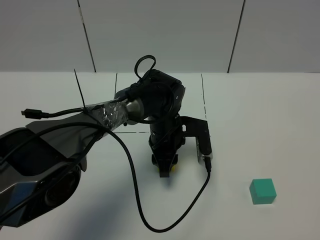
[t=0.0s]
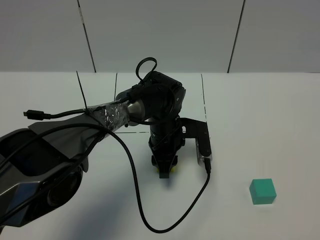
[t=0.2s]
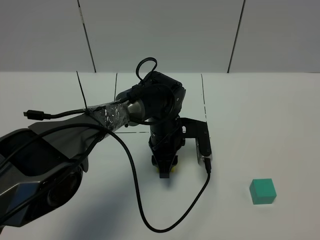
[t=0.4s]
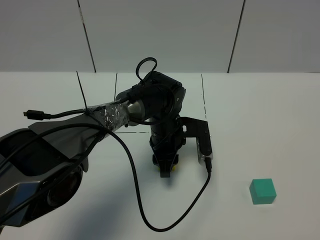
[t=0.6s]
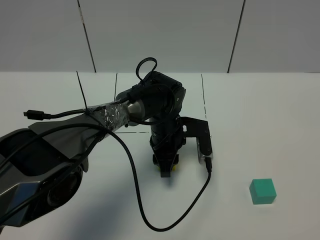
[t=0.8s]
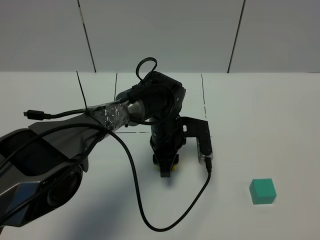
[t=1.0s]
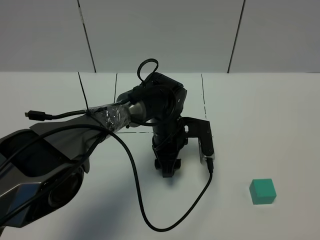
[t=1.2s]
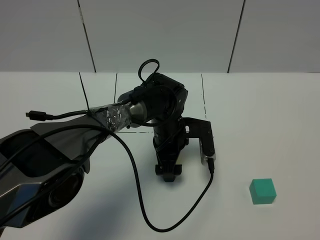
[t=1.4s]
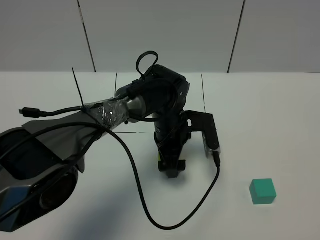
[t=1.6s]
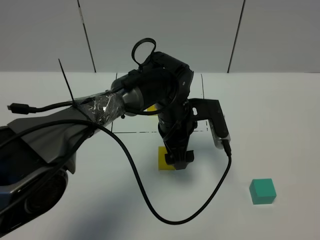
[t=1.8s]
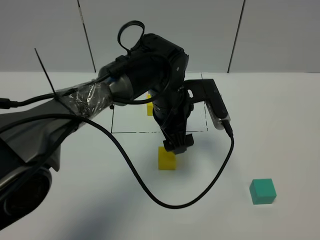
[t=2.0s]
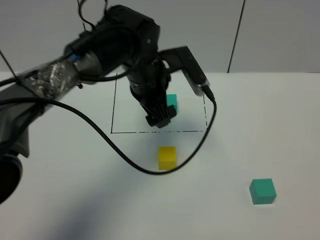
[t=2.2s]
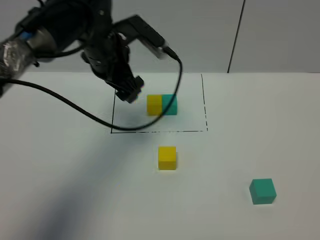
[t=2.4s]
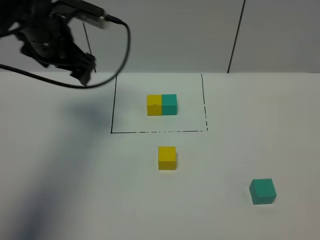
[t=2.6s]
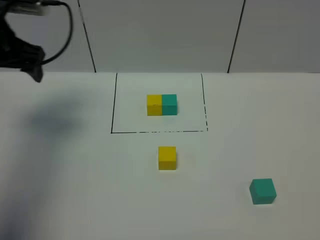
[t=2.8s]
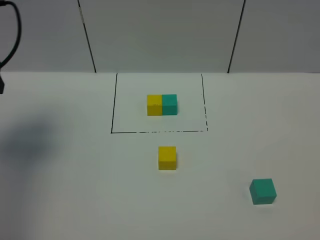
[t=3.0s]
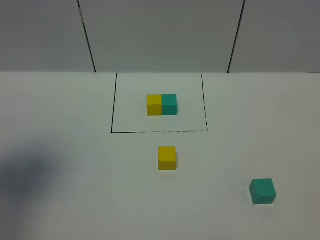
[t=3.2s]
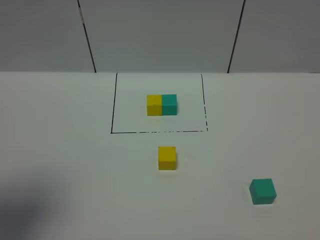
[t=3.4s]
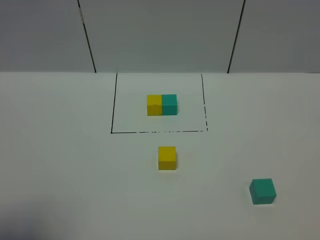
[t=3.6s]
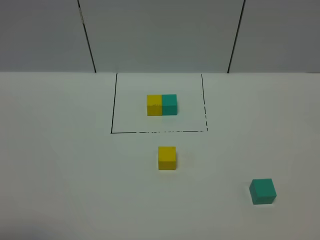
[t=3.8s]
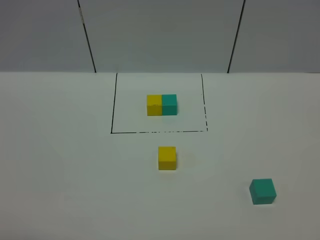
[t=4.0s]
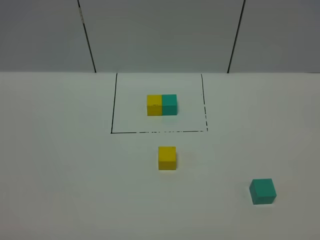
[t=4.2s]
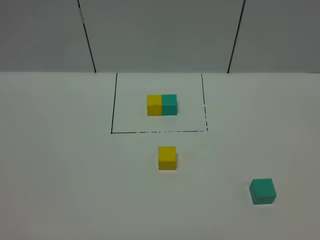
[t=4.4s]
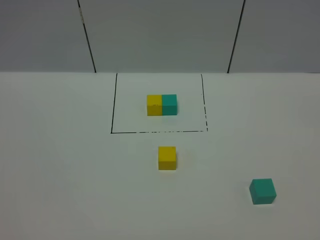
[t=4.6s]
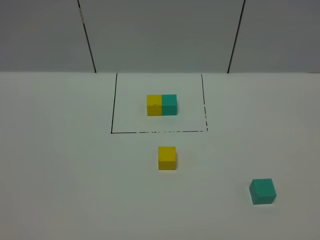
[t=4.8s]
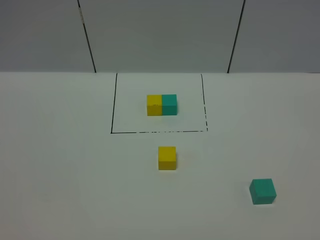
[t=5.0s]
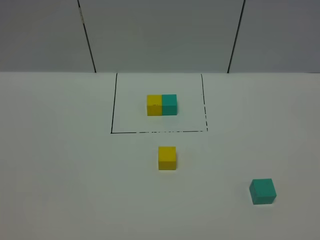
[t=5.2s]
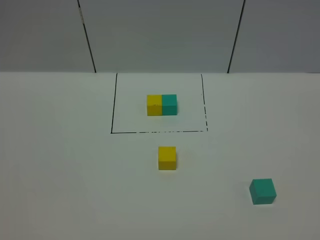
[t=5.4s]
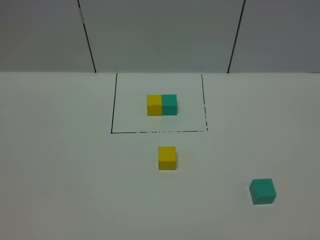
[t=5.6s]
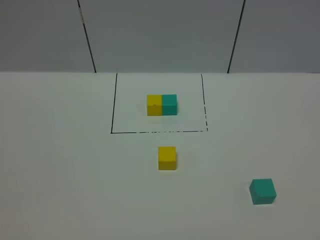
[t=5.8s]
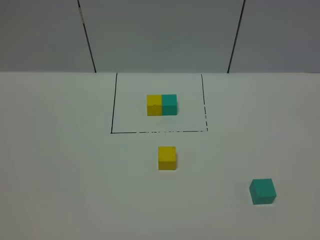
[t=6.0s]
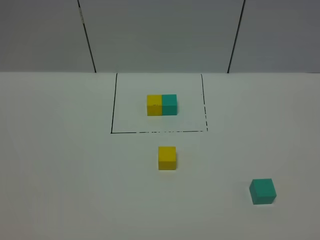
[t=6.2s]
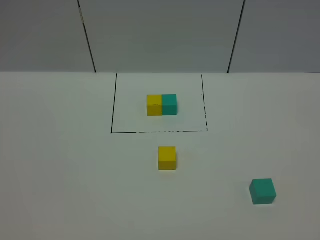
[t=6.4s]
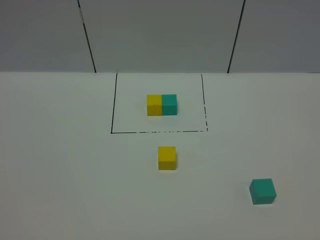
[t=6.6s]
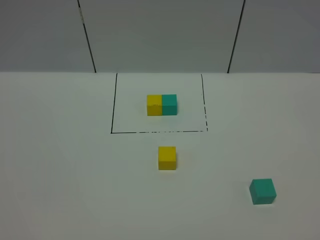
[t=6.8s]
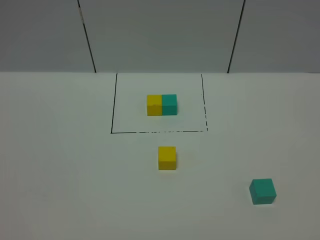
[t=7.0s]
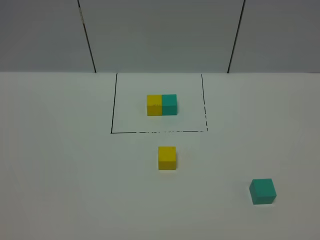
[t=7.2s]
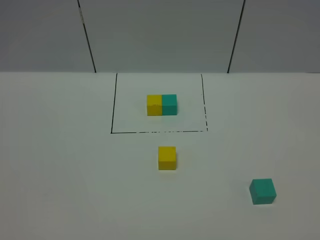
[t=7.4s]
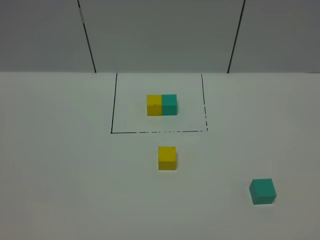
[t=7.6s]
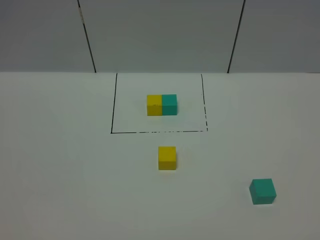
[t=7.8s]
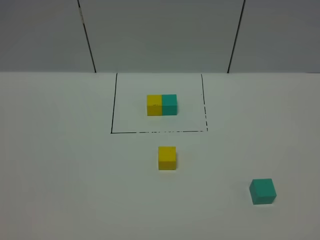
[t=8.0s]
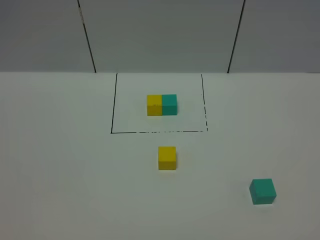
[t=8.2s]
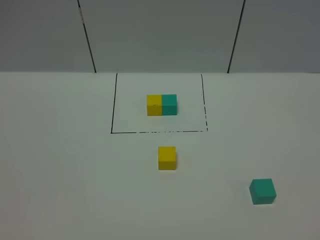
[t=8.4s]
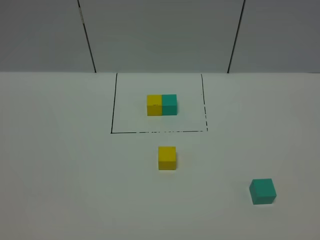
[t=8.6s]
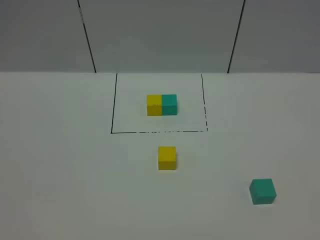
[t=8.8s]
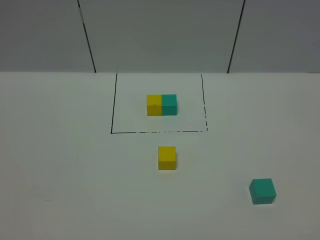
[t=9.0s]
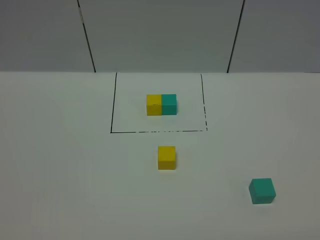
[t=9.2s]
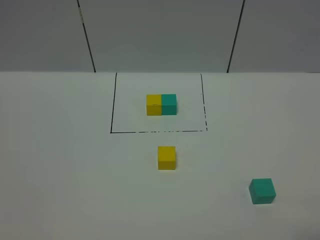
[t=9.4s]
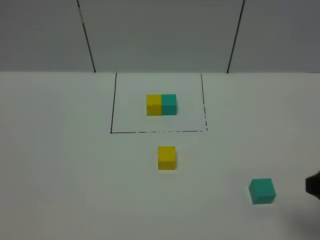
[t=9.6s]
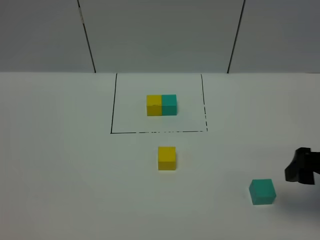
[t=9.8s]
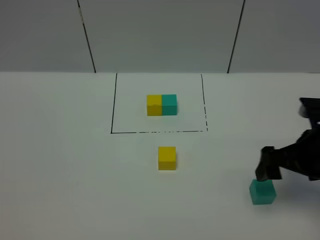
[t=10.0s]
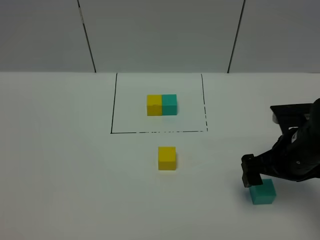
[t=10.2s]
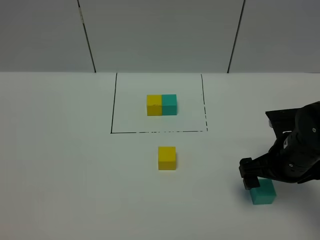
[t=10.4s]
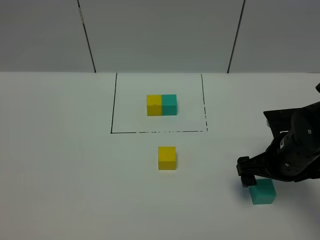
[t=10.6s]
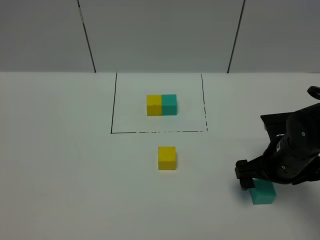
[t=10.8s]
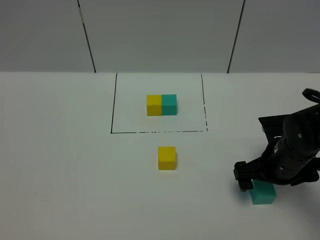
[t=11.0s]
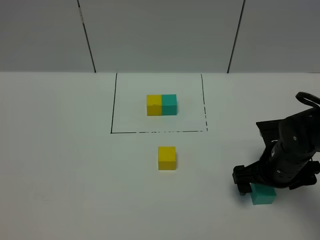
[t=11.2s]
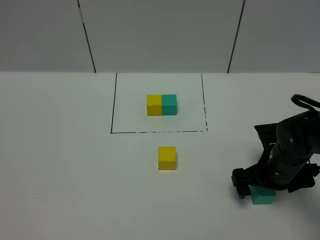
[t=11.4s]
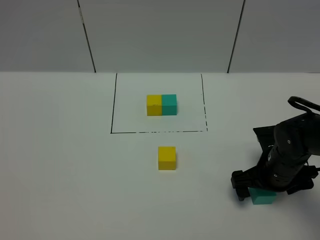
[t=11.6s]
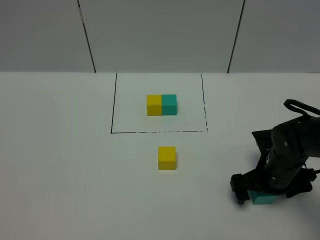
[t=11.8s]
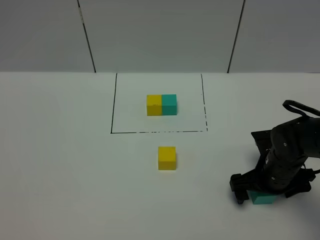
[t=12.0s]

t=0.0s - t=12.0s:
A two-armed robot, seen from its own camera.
Task of the whole recording: According to the building block template in front, assemble the scattered blocks together.
t=0.0s - t=1.6s: The left gripper opens up.
t=1.6s - t=3.0s: The left gripper shifts approximately 40 cm to the left and upward.
t=3.0s - t=4.4s: The left gripper is displaced backward by roughly 30 cm.
t=6.0s - t=9.0s: The two grippers keep their place.
t=9.0s - t=10.4s: The right gripper moves forward, roughly 30 cm.
t=10.4s - t=12.0s: The right gripper heads downward, covering approximately 5 cm.

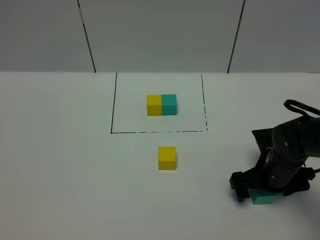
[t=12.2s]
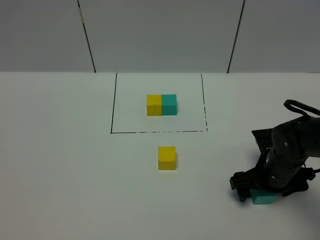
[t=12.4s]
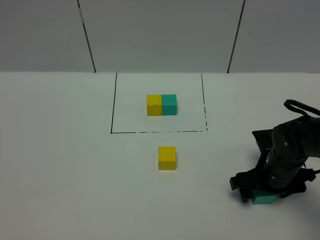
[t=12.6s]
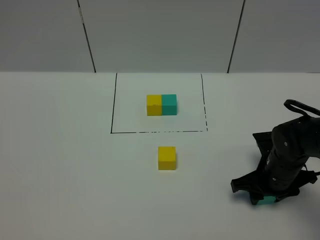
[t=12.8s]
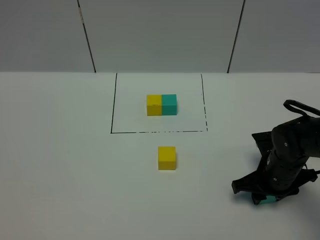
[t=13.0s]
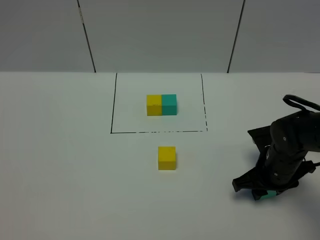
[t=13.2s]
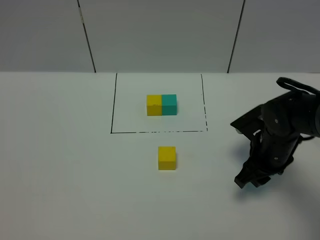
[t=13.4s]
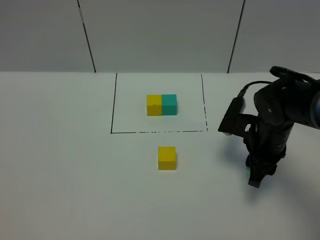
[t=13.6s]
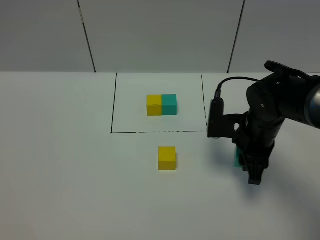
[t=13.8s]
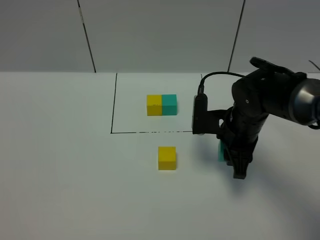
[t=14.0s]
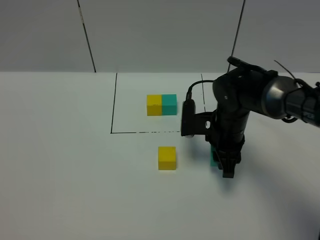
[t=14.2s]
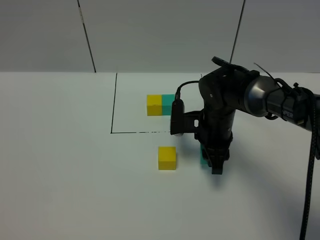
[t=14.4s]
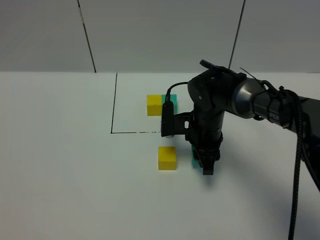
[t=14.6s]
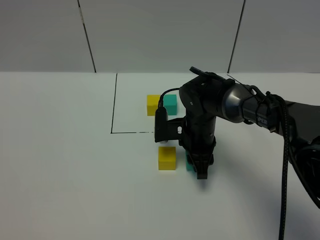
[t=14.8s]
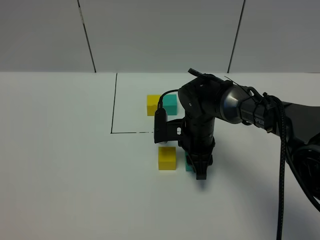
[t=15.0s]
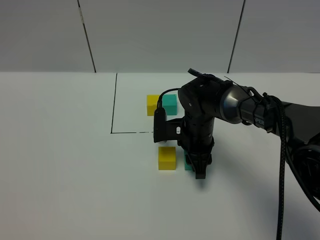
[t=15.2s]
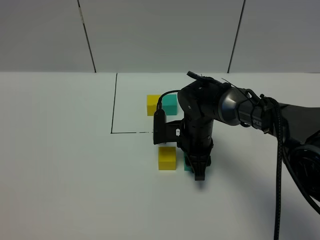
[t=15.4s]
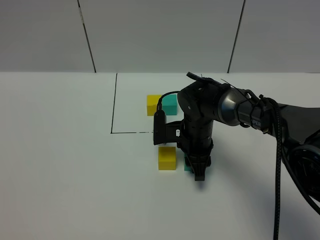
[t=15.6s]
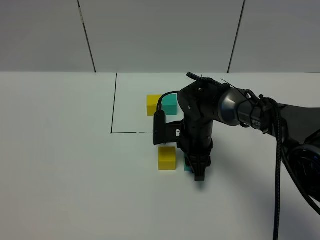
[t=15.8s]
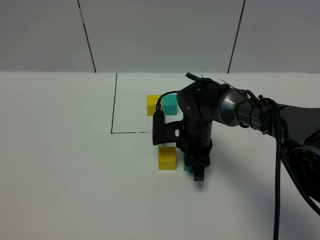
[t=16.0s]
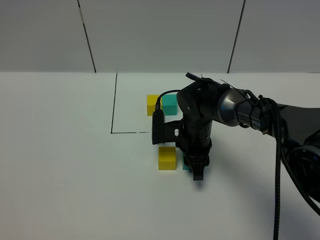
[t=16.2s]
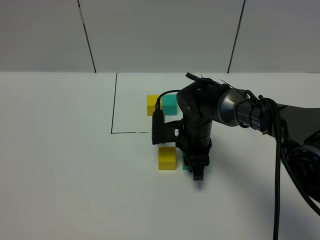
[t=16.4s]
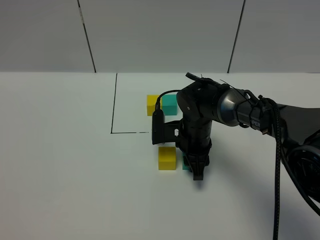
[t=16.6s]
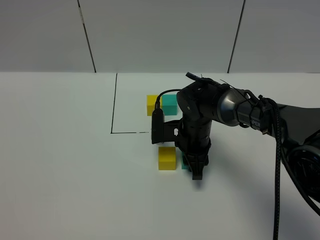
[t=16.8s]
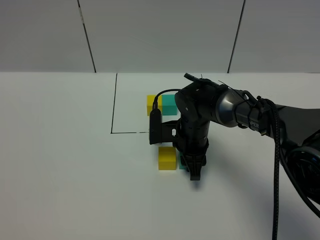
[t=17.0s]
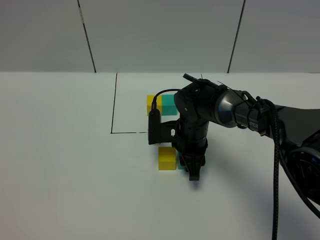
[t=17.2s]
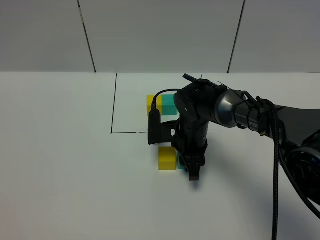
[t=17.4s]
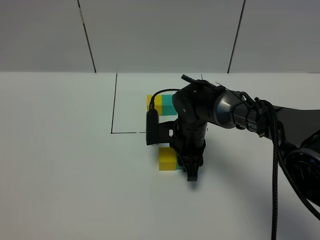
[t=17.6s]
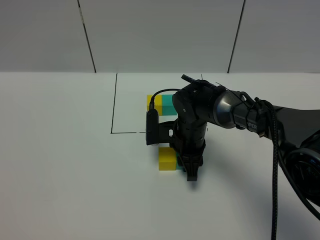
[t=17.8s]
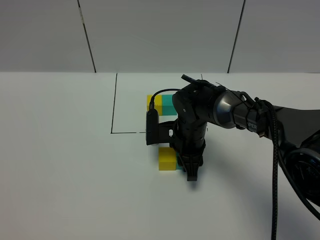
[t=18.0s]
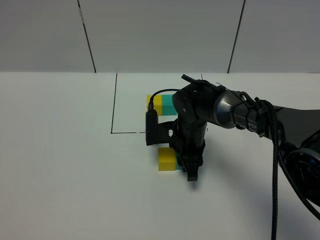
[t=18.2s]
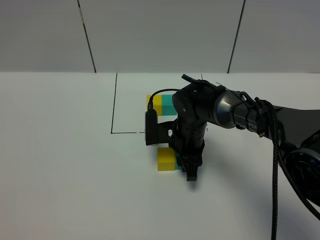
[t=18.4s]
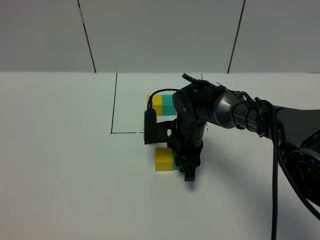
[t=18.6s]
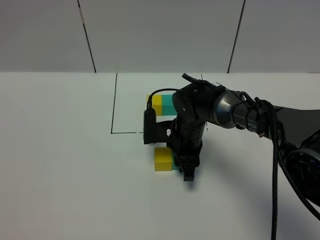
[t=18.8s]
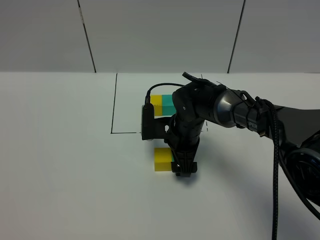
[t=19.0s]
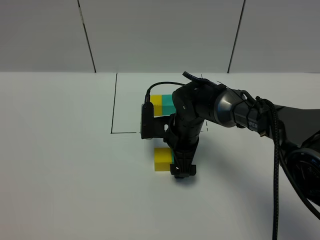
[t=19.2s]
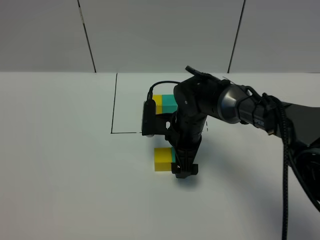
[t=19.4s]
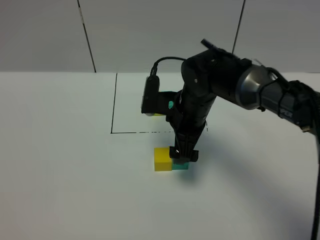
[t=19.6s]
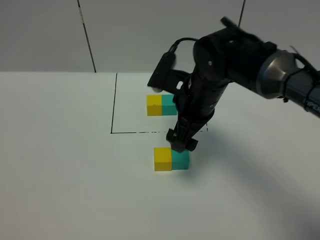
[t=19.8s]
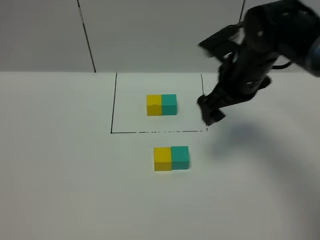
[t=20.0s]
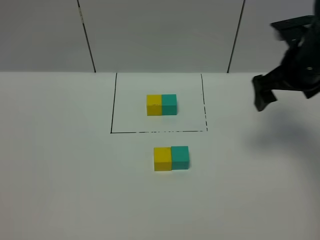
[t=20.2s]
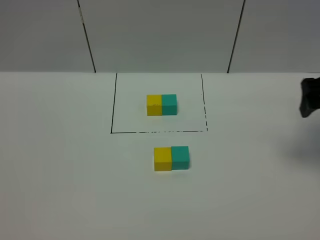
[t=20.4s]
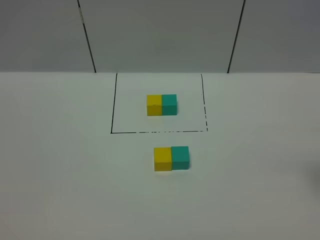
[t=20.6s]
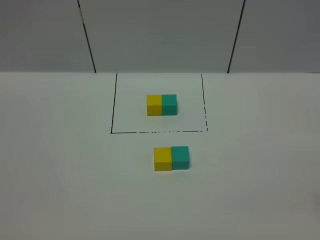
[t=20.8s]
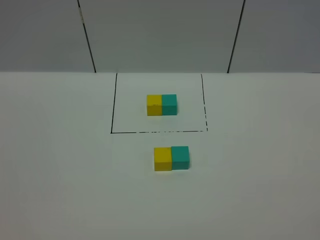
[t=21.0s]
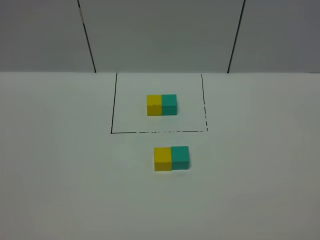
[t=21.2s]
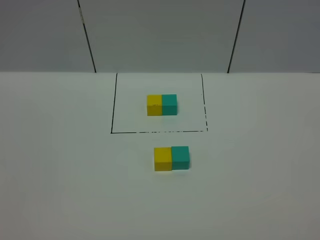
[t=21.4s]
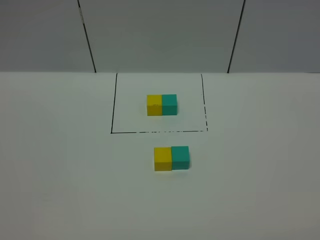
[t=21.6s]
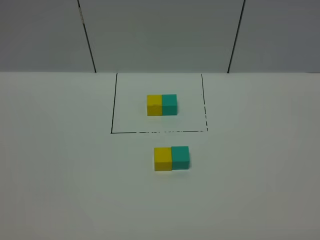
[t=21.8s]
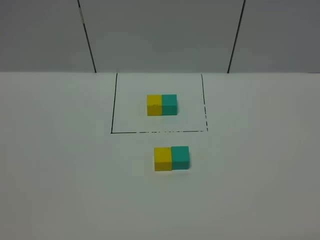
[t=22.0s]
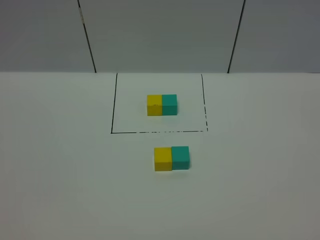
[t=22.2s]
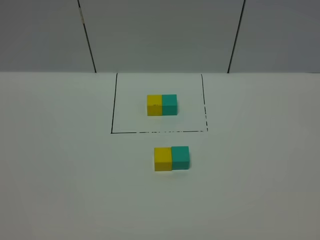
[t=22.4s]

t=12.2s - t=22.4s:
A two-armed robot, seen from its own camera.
Task of the whole recording: According to the building block template in front, assemble the scattered blocks together.
Step, t=12.2s - t=19.2s: Put the green cube on the right of the yellow cube.
t=12.2s - t=13.6s: The right gripper goes about 5 cm upward, and closes its fingers.
t=13.6s - t=15.2s: The right gripper moves to the left, roughly 10 cm.
t=15.2s - t=16.6s: Both grippers stay about where they are.
t=16.6s - t=18.0s: Both grippers stay about where they are.
t=18.0s - t=19.4s: The right gripper opens up.
t=19.4s - t=21.0s: The right gripper travels to the right, backward and upward by about 40 cm.
